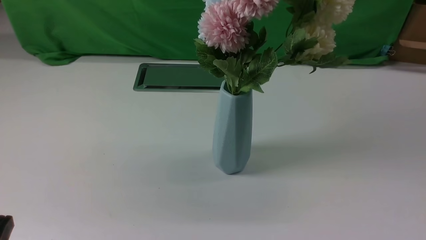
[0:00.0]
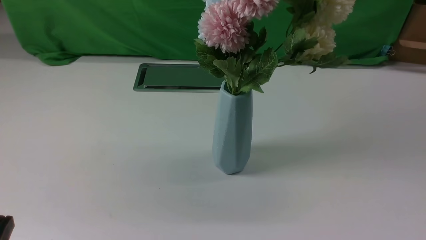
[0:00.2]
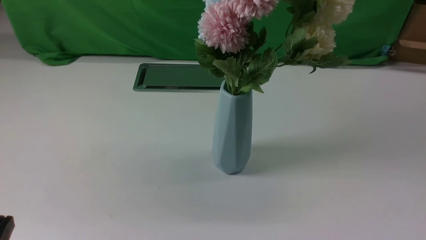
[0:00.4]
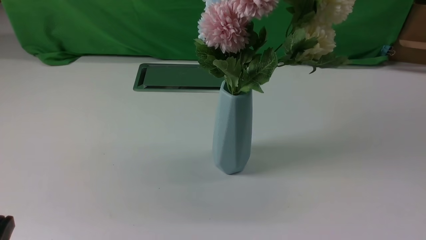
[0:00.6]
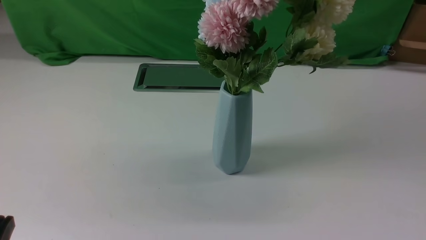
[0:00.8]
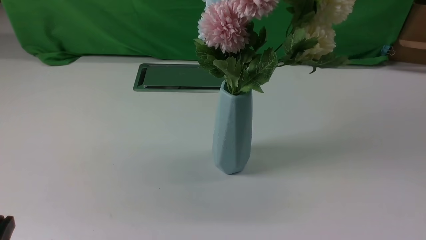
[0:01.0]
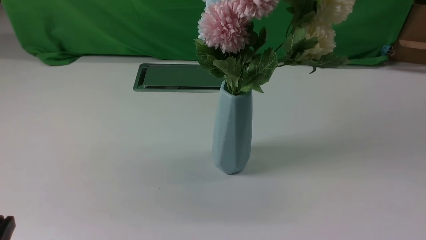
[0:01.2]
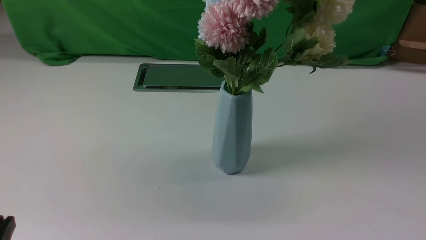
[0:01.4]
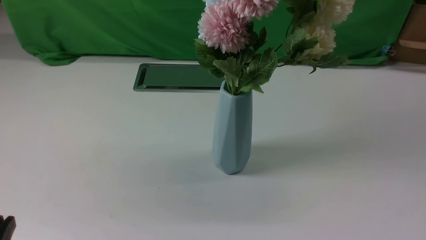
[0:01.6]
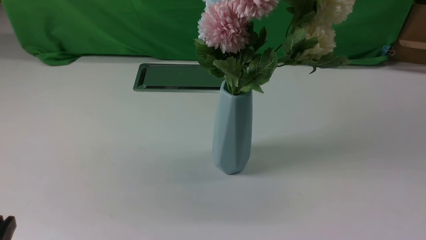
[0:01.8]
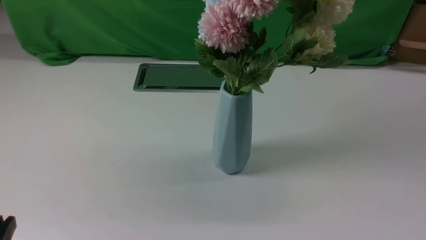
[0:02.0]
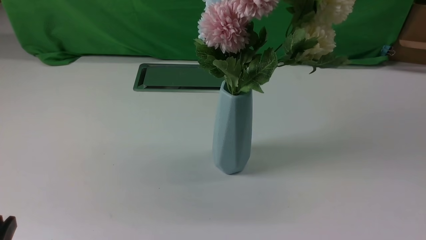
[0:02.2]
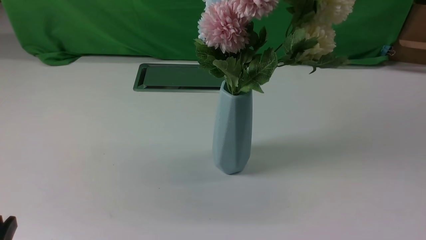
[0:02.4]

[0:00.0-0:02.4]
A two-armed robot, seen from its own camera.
Task of the whole recording: insert the flowers into the vase on the white table.
0:01.2 to 0:02.4: The two grippers keep their place.
